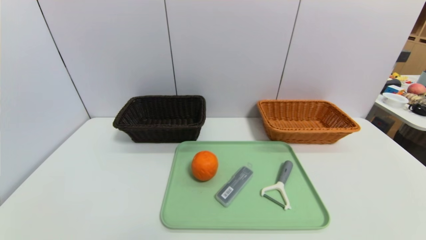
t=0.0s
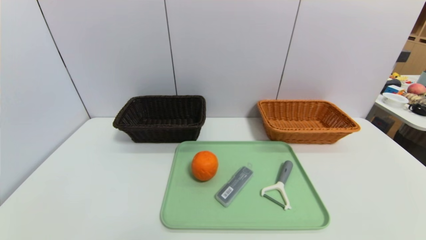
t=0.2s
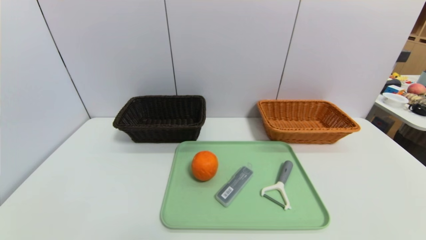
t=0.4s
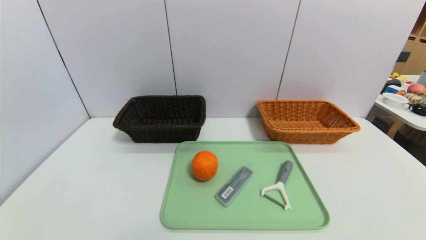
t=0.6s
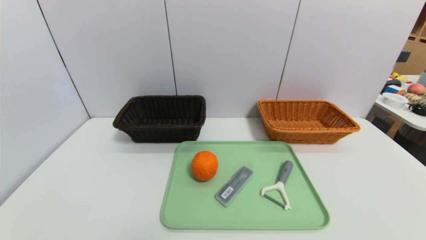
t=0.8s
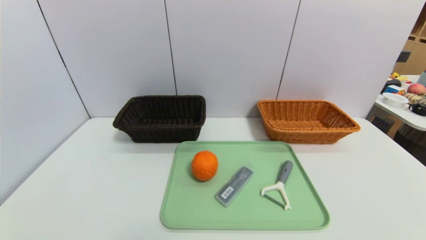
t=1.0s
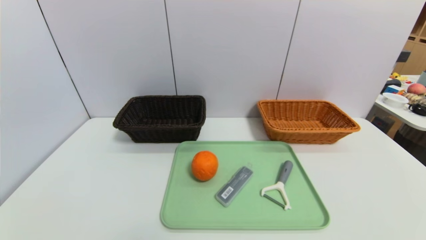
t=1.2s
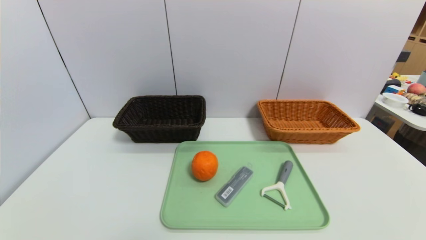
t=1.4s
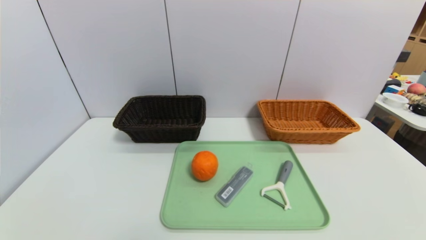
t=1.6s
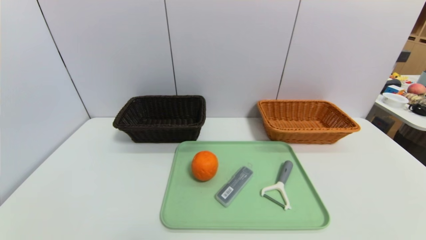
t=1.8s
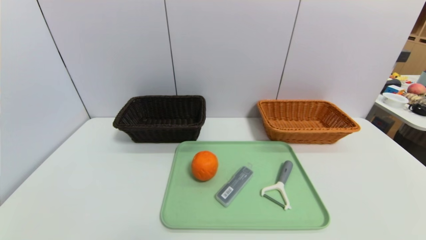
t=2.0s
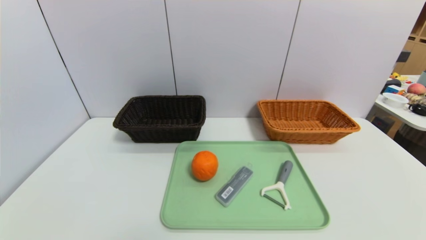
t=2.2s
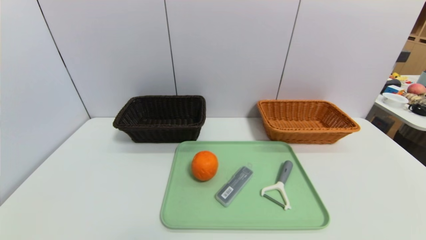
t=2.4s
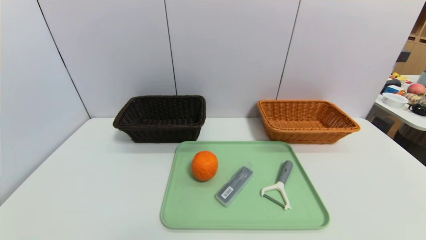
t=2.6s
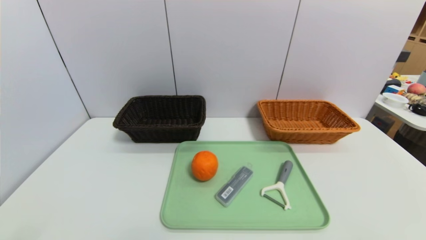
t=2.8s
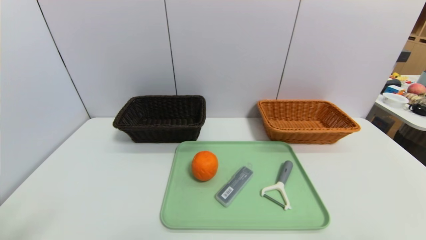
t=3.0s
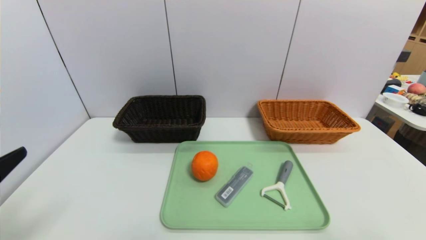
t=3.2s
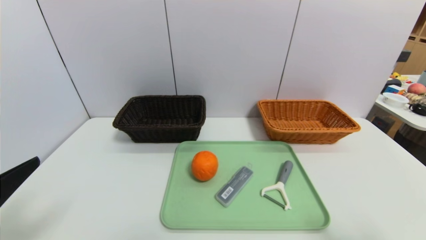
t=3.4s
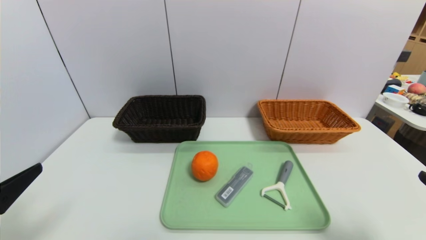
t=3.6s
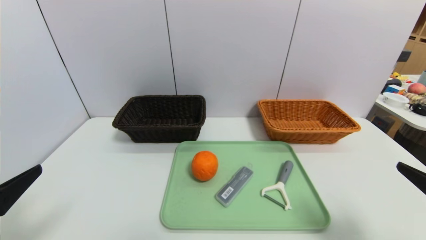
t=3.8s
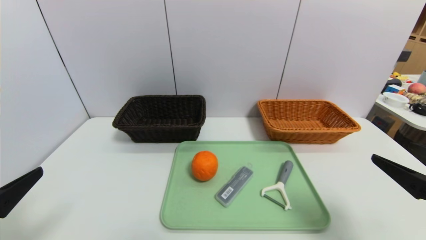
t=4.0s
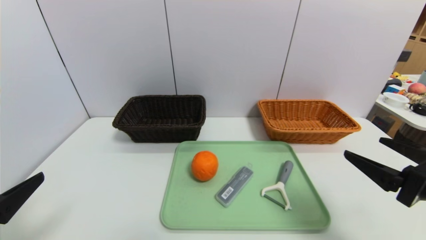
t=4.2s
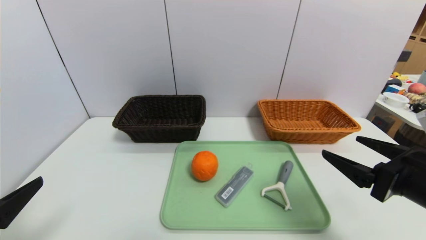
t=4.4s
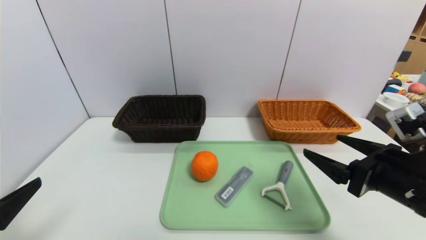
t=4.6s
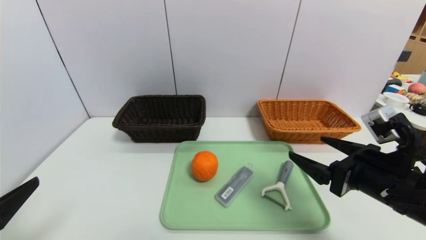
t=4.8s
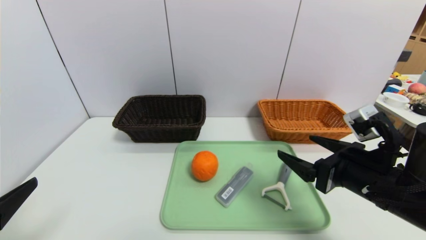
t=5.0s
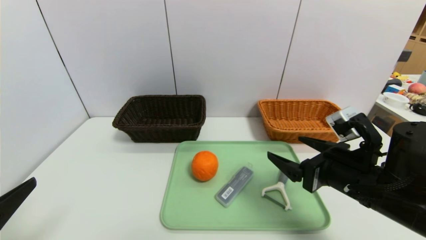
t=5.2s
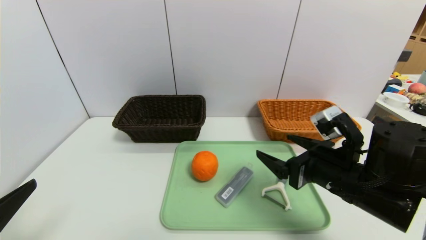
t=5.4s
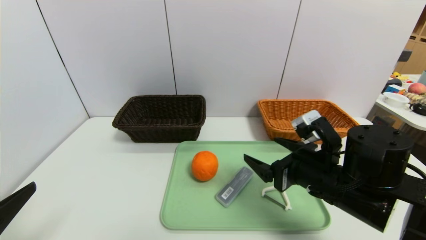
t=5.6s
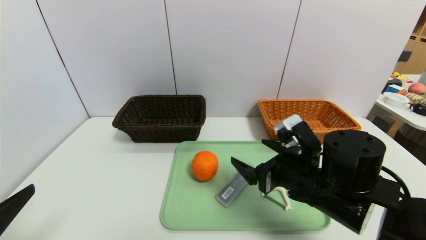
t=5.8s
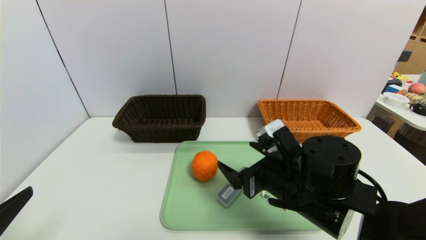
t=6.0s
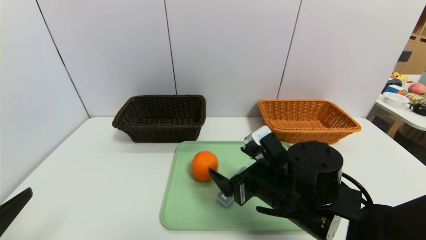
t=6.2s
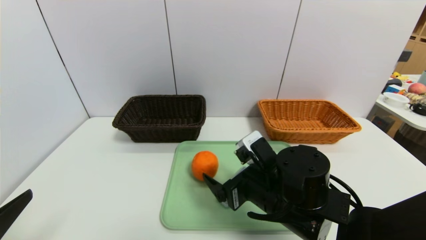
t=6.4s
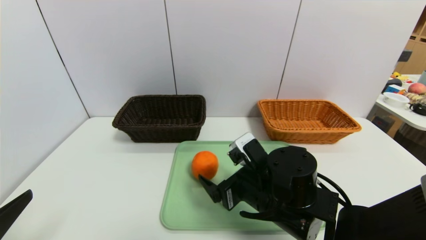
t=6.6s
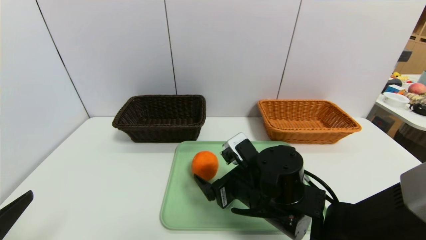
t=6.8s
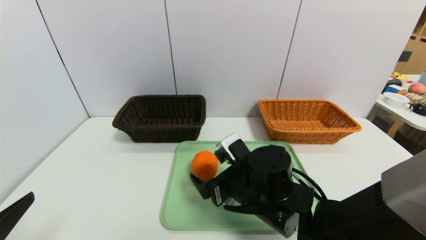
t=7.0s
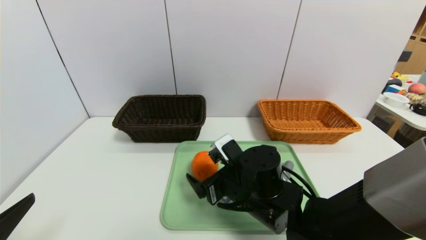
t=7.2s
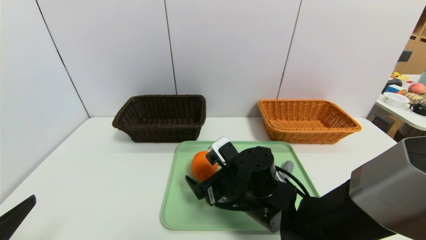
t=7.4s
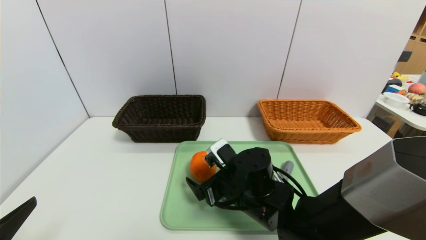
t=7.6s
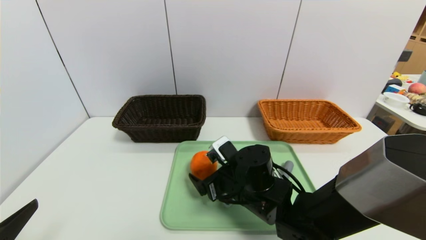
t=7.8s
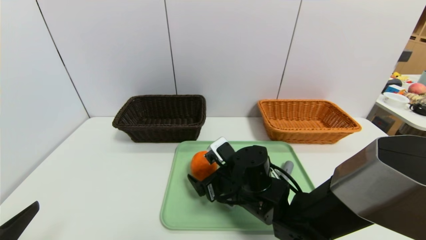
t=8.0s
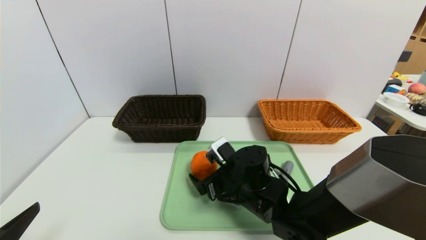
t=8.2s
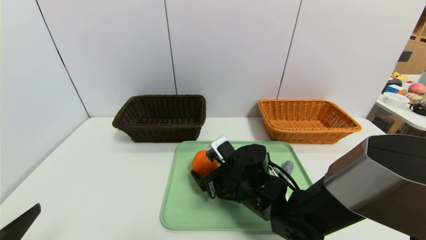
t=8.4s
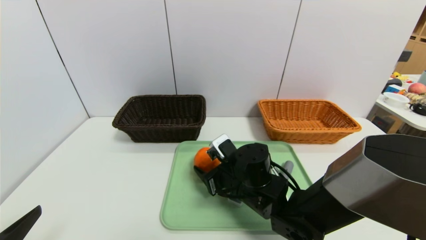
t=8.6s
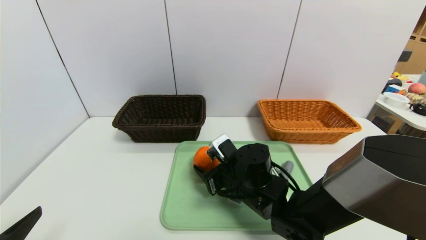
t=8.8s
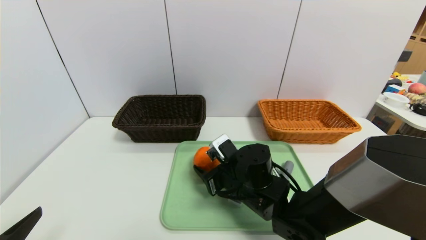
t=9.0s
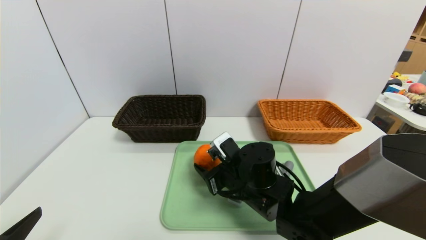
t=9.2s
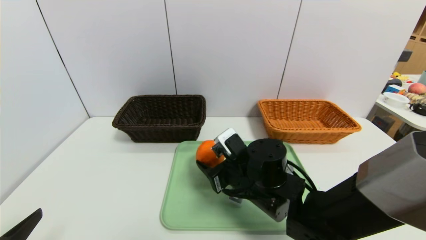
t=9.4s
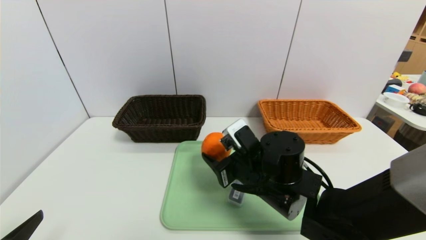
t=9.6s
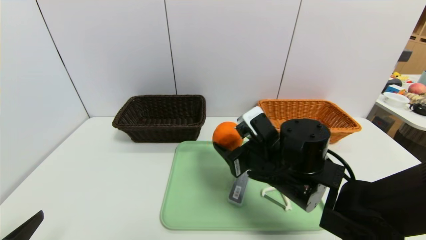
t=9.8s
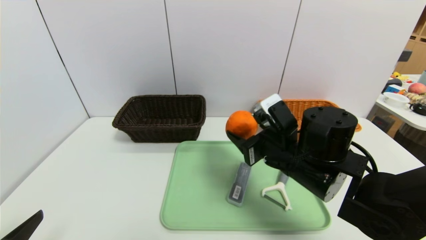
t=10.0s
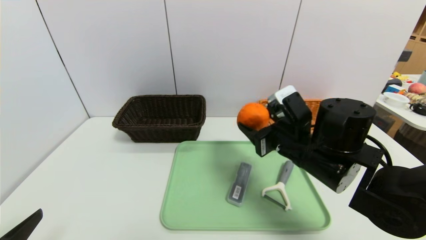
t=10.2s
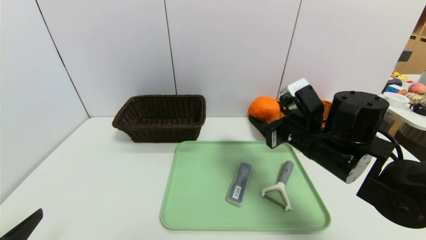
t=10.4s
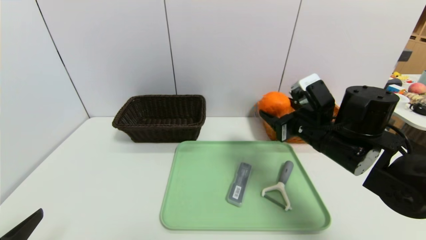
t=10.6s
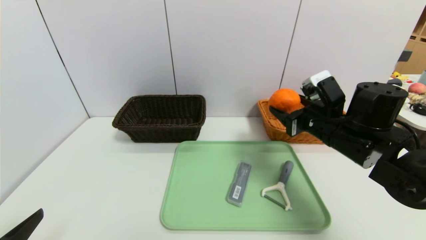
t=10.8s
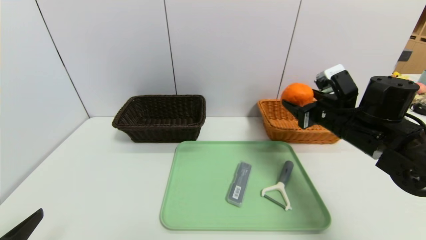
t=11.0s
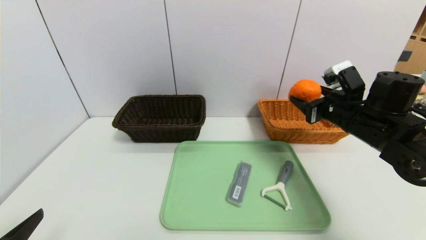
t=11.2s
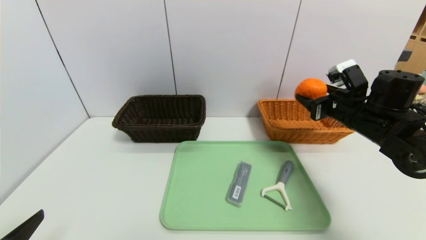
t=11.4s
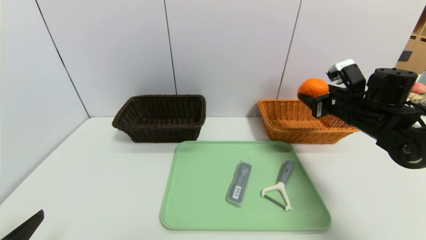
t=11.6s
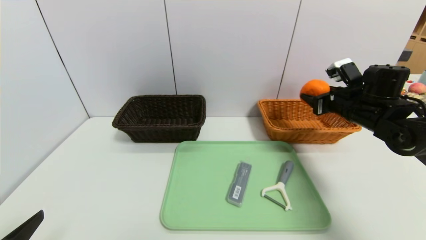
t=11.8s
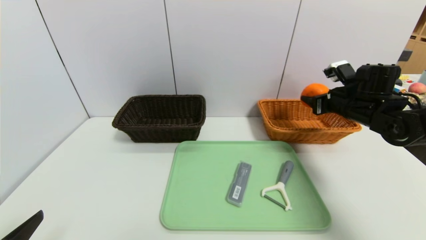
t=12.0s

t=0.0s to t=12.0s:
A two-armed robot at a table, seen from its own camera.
Task of the whole recording: place the food in the right basket with the right gripper, and place the non food items in the left basket with the left gripper.
t=0.0s to t=1.6s: Both grippers stay put.
t=3.0s to t=4.4s: The right gripper goes approximately 15 cm forward and to the left. Meanwhile the left gripper moves about 5 cm.
t=4.4s to t=6.0s: The right gripper travels to the left by roughly 15 cm.
t=6.0s to t=7.6s: The right gripper is displaced to the left and downward by some 10 cm.
t=7.6s to t=9.0s: The right gripper closes up.
t=9.0s to t=10.4s: The right gripper heads to the right and upward, covering roughly 15 cm.
t=10.4s to t=12.0s: The right gripper moves to the right and forward, roughly 20 cm.

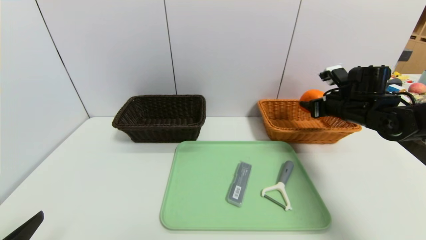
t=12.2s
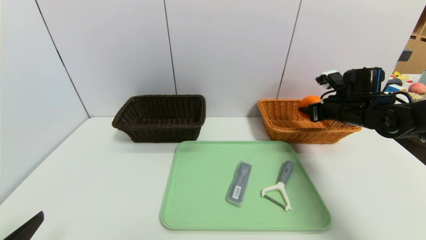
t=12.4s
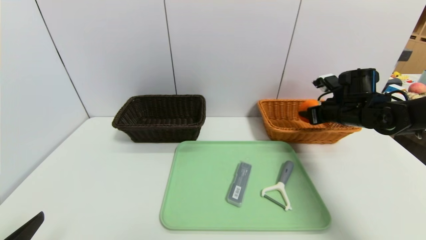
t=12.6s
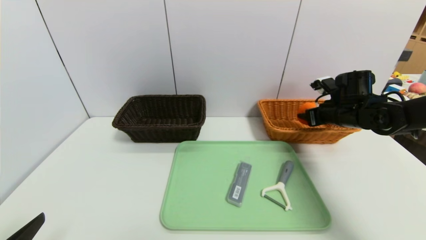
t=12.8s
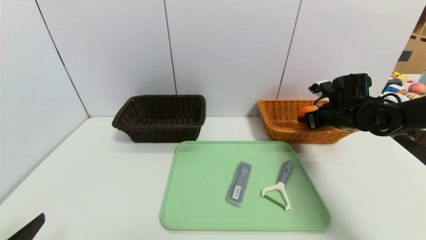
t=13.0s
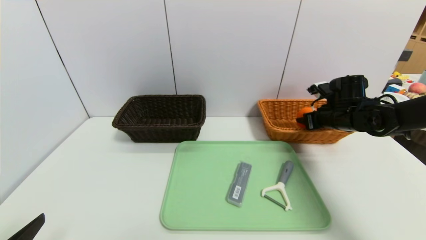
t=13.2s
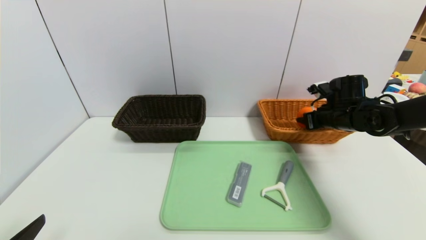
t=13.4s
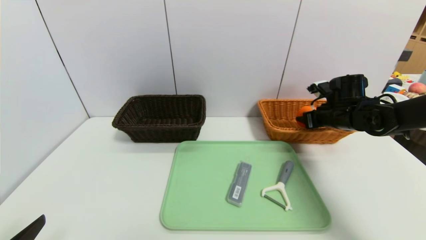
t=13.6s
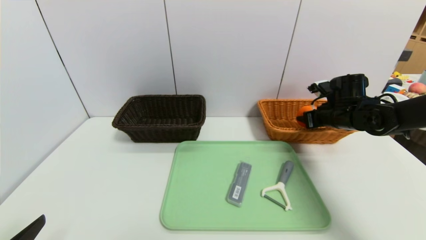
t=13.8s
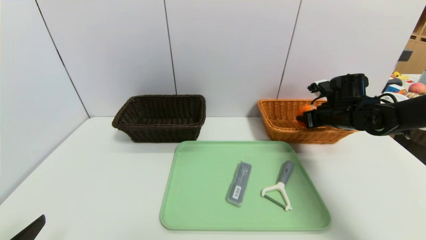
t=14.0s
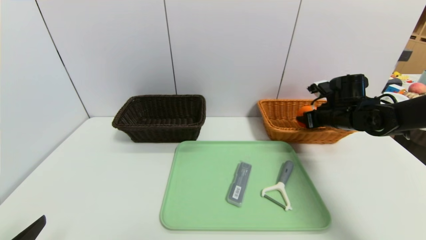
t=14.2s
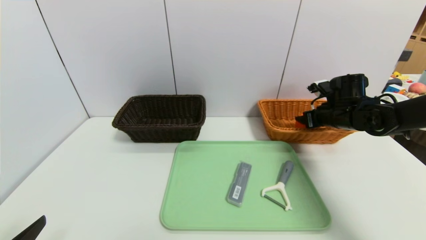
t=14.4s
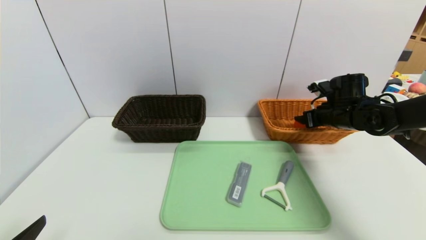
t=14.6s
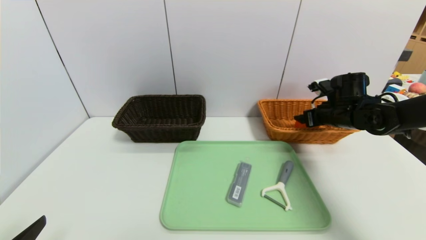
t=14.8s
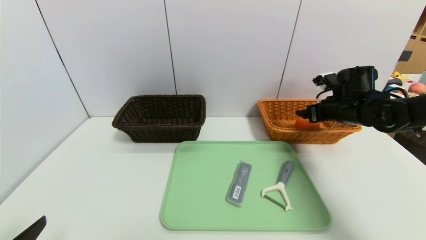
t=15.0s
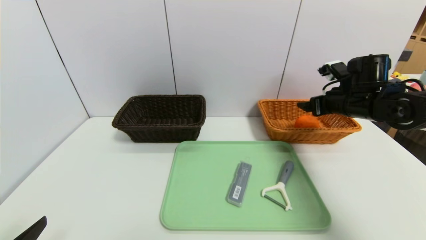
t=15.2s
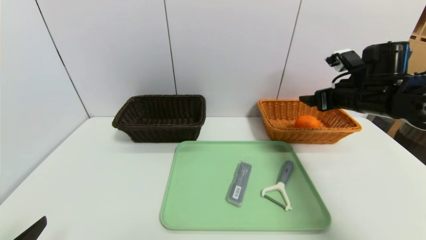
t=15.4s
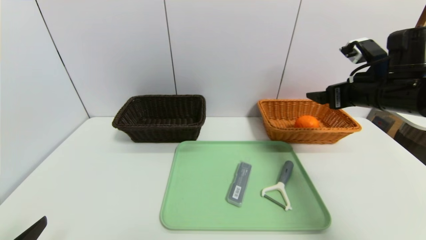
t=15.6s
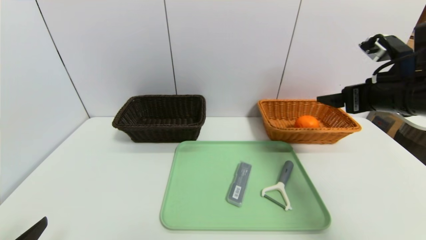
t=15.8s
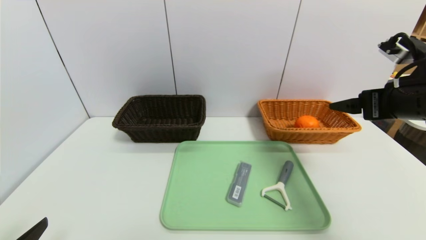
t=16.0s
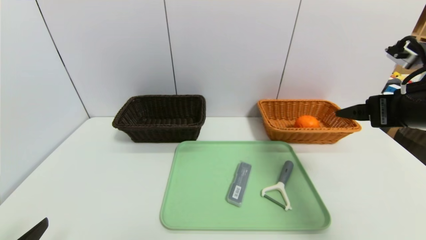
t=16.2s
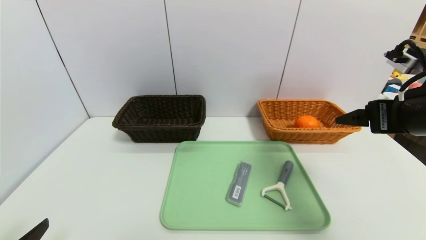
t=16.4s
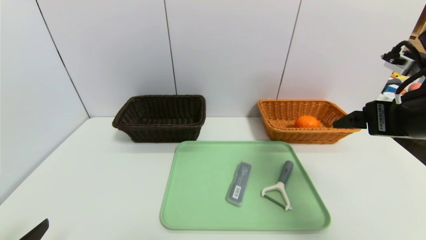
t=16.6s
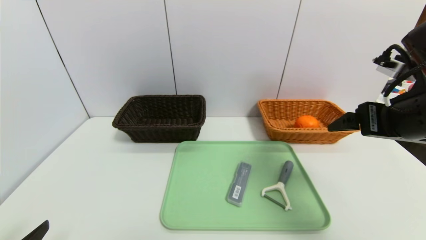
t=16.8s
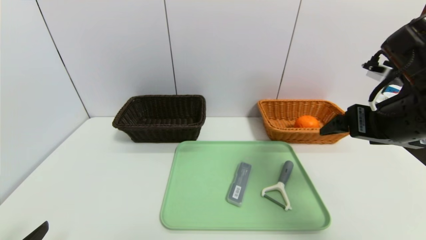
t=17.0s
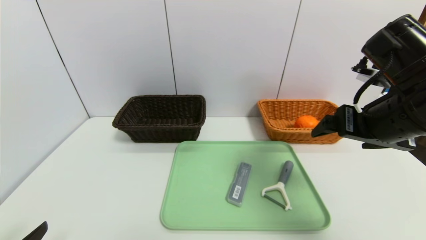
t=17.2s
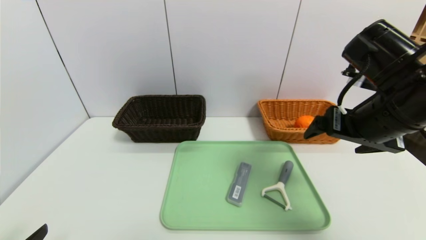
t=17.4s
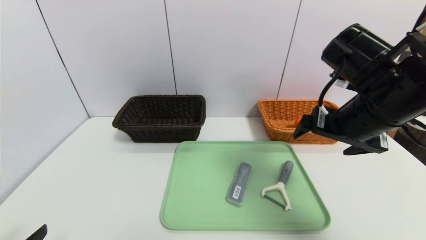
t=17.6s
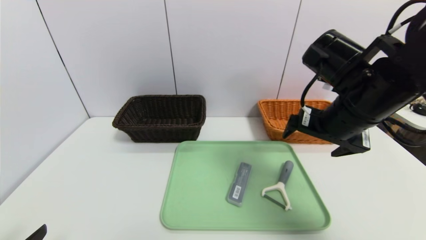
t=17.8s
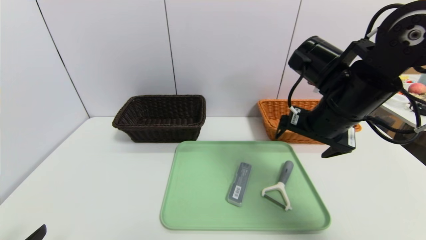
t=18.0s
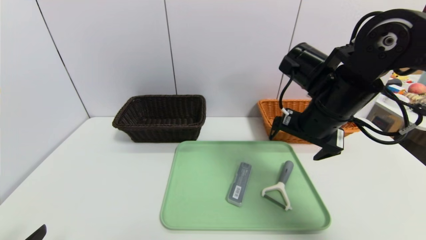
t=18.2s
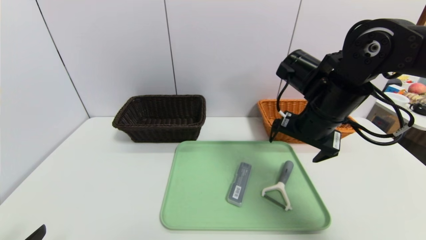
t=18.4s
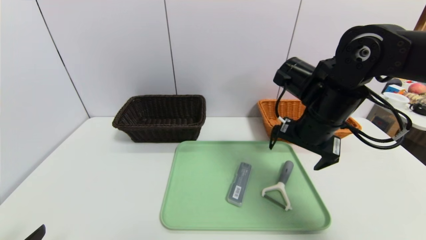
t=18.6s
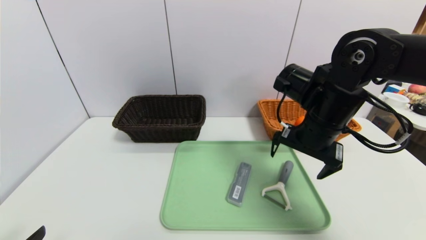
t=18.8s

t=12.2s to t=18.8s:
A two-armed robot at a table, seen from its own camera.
Task of the whole recording: place the food in the right basket with the right gripper, and place the non food items in the left basket with the left gripper.
Step, t=12.2s to t=14.8s: Grasp the orange and put it in the right basket.
t=12.2s to t=13.8s: The grippers stay close to where they were, moving slightly.
t=13.8s to t=15.4s: The right gripper is displaced upward and backward by approximately 10 cm, and opens its fingers.
t=15.4s to t=17.2s: The right gripper is displaced backward and to the left by roughly 15 cm.
t=17.2s to t=18.8s: The right gripper travels forward, to the left and downward by some 10 cm.
